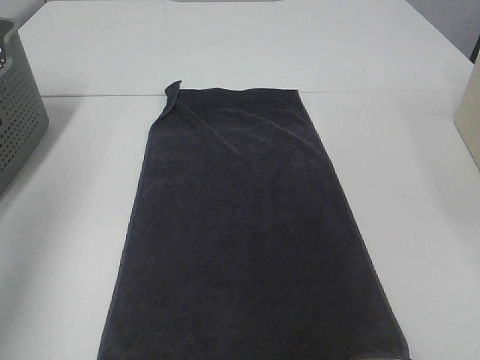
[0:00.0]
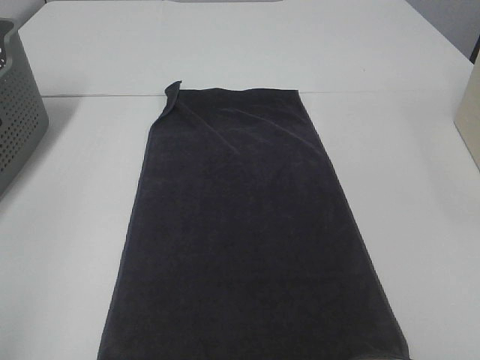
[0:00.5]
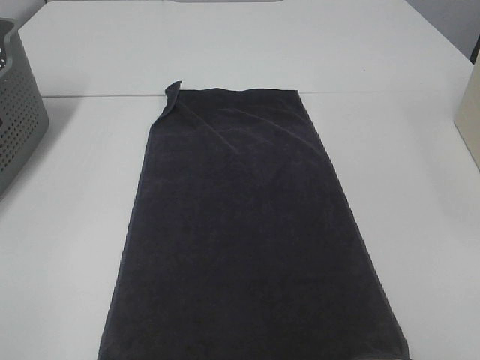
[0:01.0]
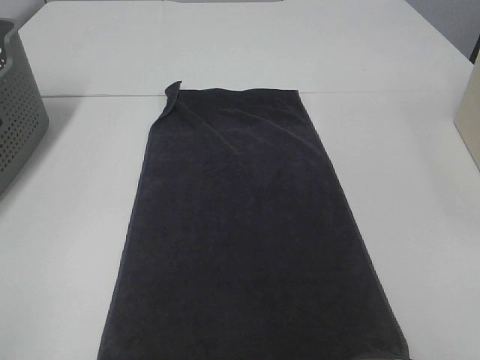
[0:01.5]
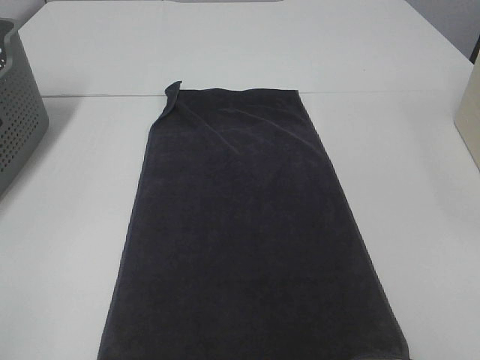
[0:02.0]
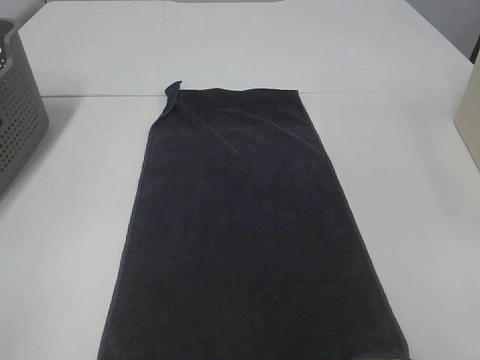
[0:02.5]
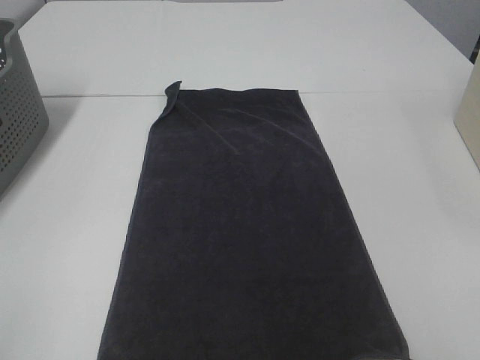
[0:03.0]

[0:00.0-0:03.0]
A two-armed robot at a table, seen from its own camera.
Task of the whole recording: Remove the towel and place it.
0:00.0 to 0:01.5: The left gripper shifts some 20 cm backward and downward.
0:01.5 to 0:03.0: Neither gripper changes place.

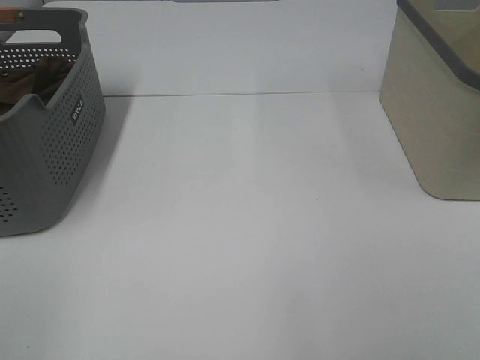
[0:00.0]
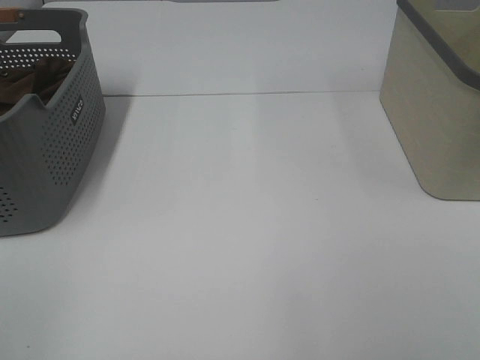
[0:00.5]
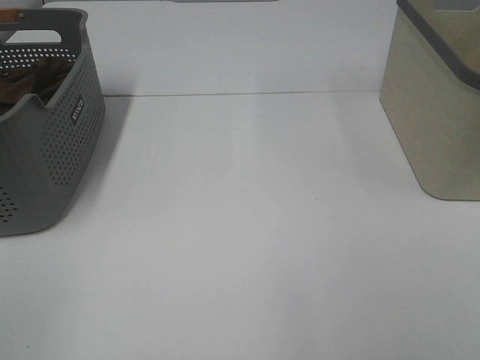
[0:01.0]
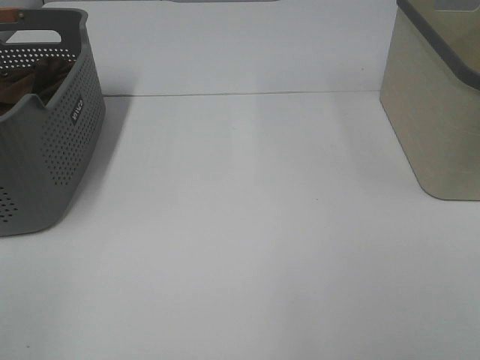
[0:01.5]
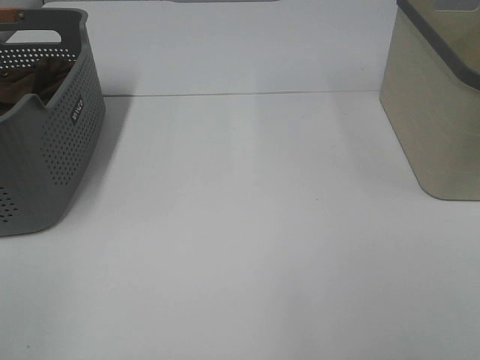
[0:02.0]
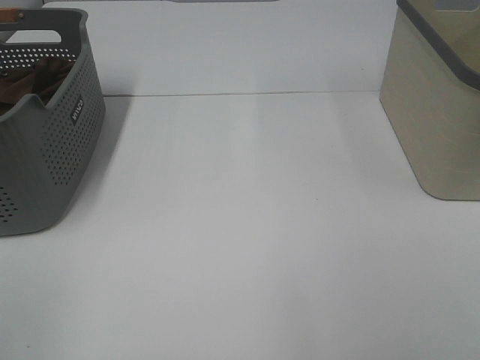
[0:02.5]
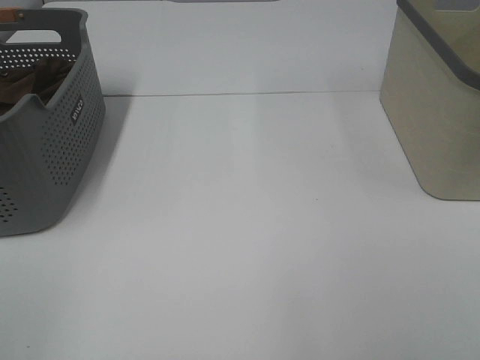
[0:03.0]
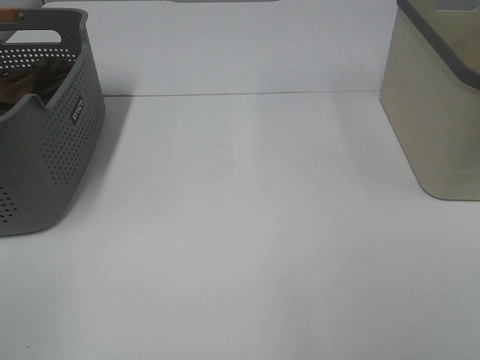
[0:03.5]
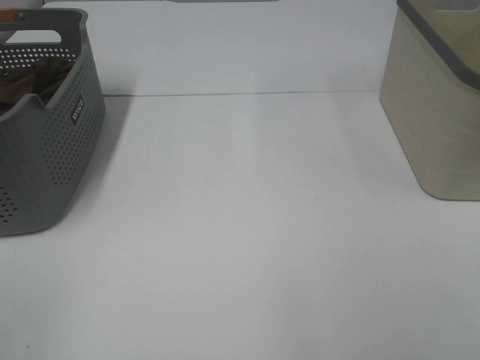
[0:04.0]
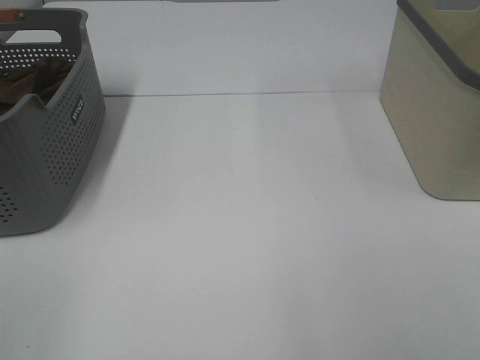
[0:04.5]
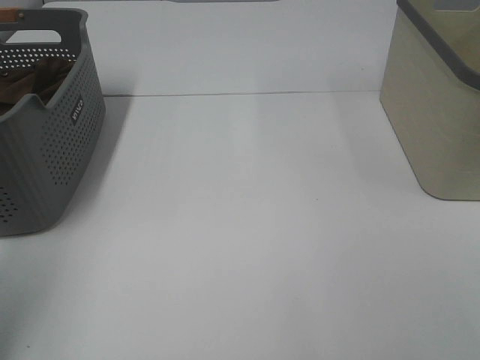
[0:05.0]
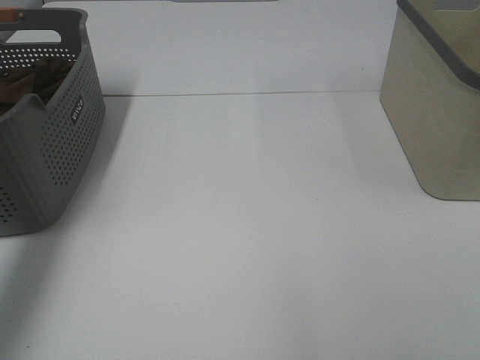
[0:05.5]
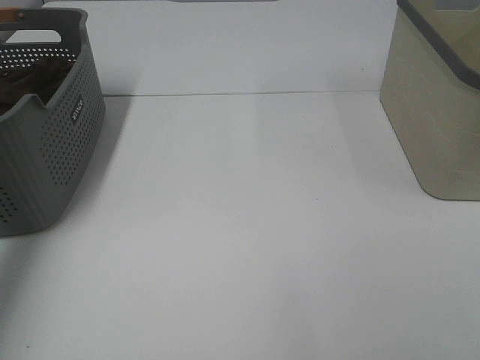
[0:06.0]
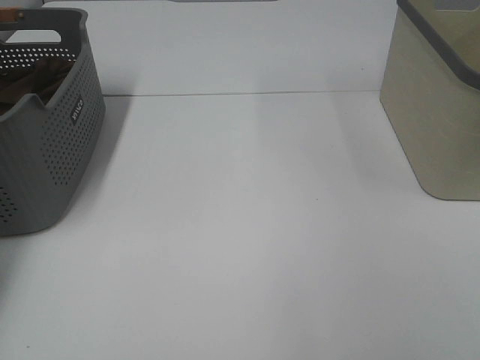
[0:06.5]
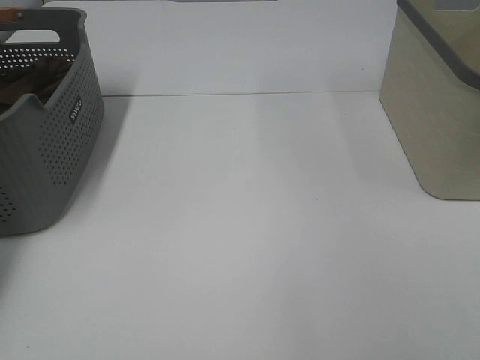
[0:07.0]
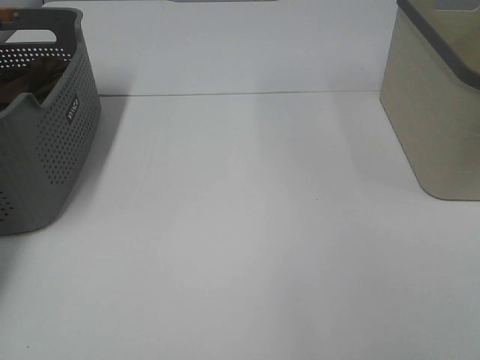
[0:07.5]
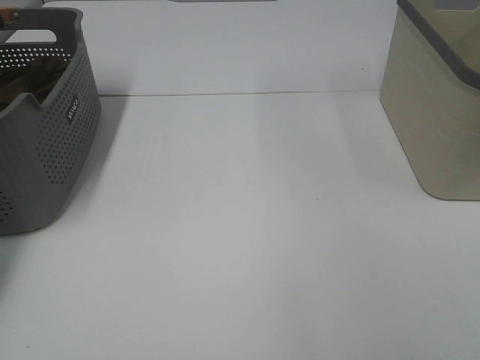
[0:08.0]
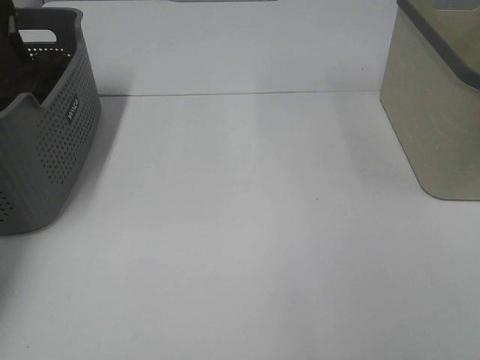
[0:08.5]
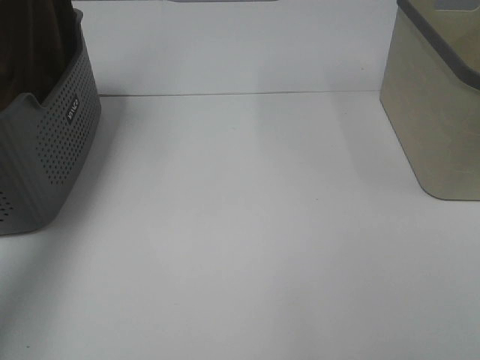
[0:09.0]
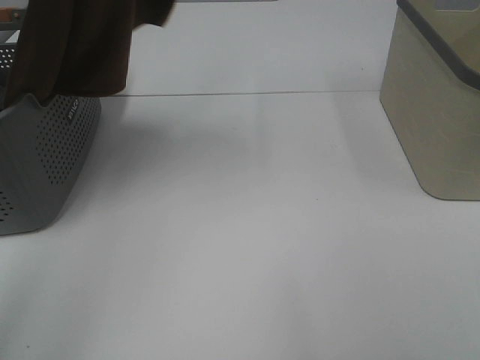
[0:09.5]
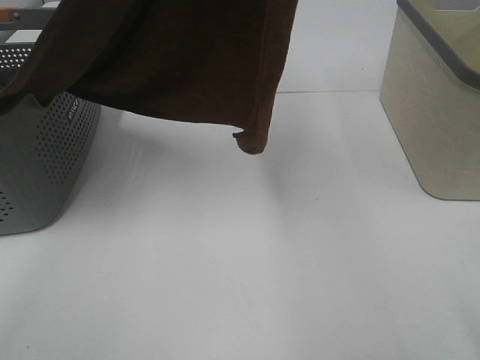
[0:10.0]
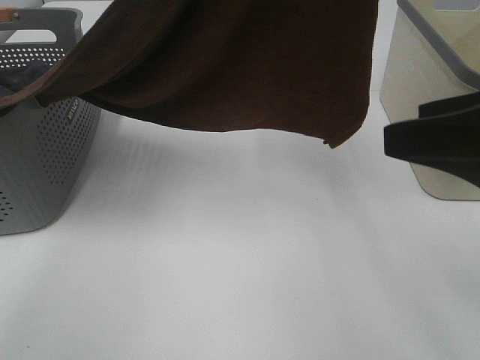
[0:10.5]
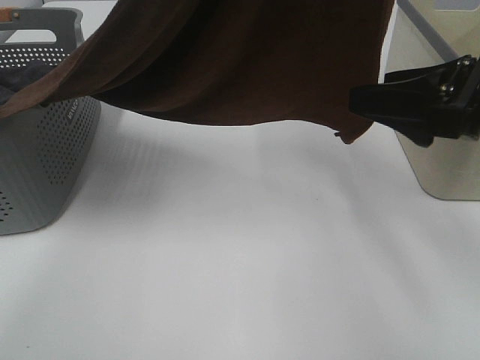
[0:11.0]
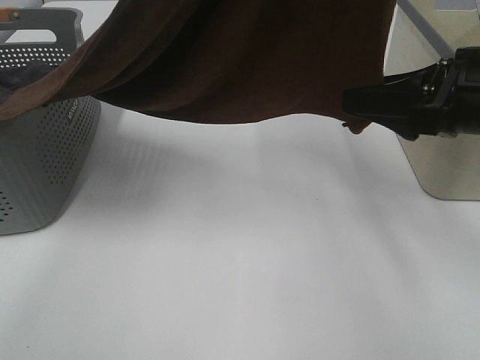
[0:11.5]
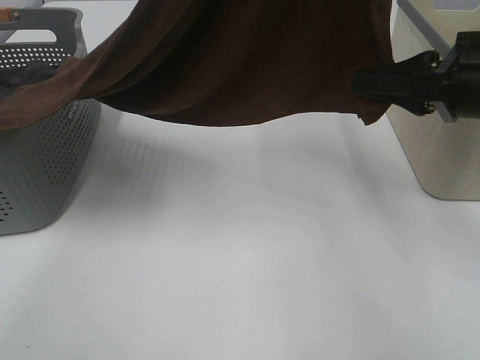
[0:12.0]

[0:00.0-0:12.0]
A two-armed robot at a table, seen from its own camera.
Task of the whole recording: Remove the towel and place it.
Step, 0:08.5 to 0:12.0: Right hand: grab a corner of the brown towel and straighten it.
0:00.0 to 0:04.0: Both grippers stay about where they are.
0:04.0 to 0:06.0: The left gripper shifts approximately 40 cm forward.
0:06.0 to 0:08.0: The left gripper heads downward, forward and to the left, covering some 15 cm, and closes up.
0:08.0 to 0:10.0: The left gripper is displaced to the right, upward and backward by roughly 50 cm, while the right gripper heads forward, covering approximately 5 cm.
0:10.0 to 0:12.0: The right gripper heads forward, covering some 20 cm, and closes its fingers.

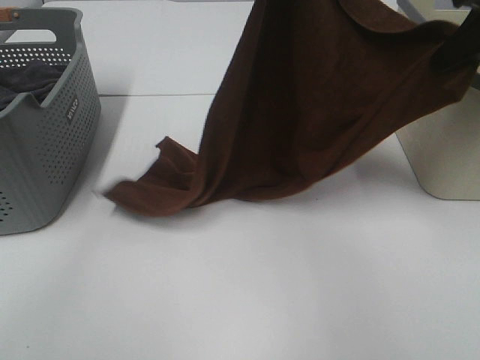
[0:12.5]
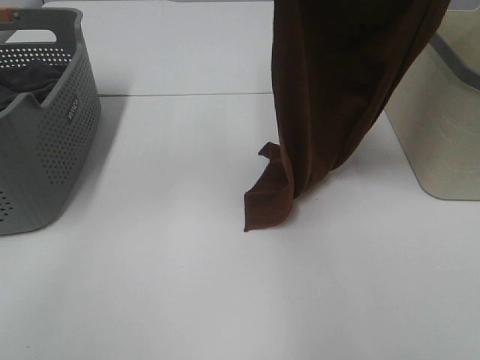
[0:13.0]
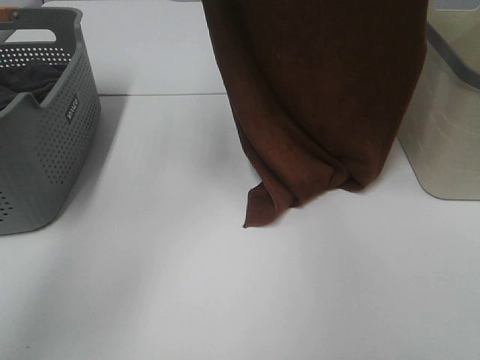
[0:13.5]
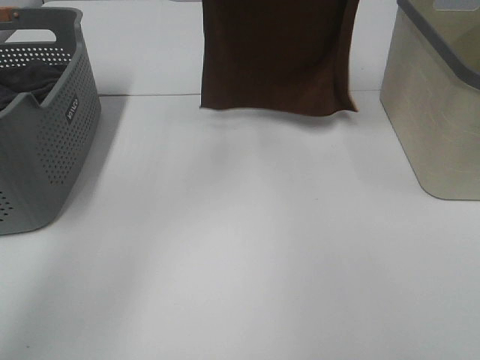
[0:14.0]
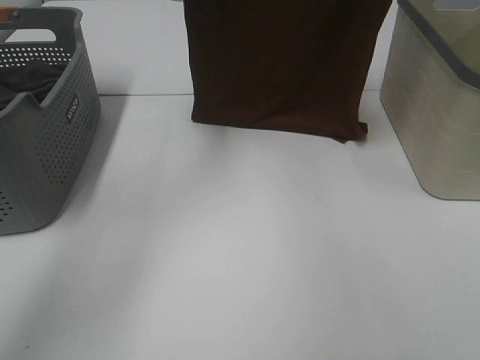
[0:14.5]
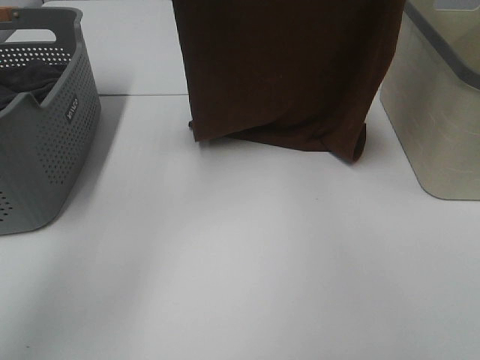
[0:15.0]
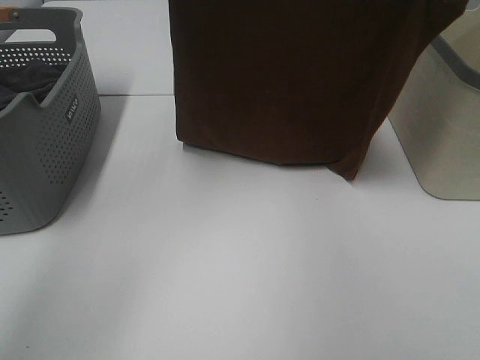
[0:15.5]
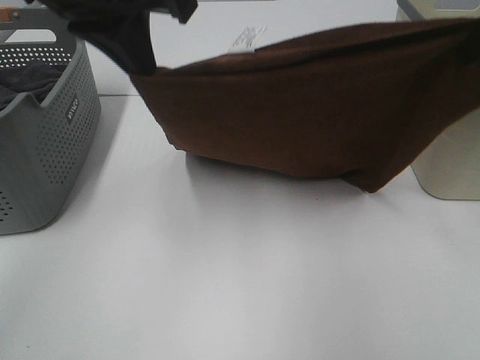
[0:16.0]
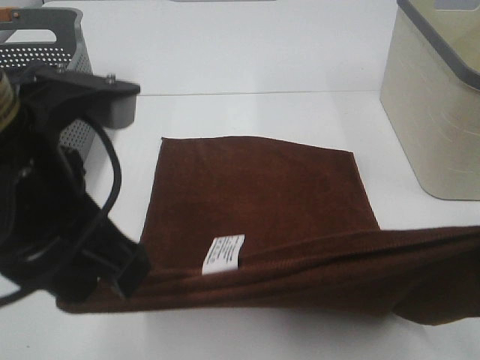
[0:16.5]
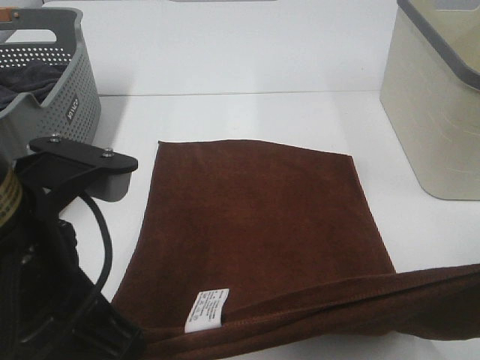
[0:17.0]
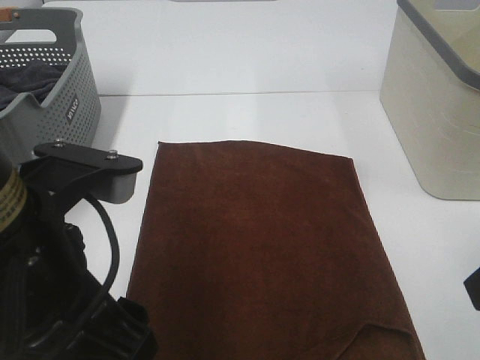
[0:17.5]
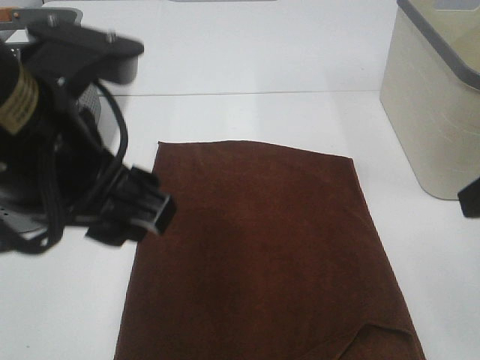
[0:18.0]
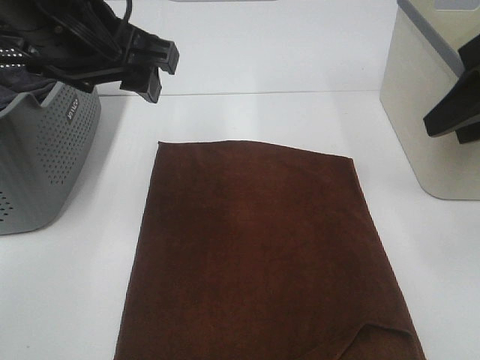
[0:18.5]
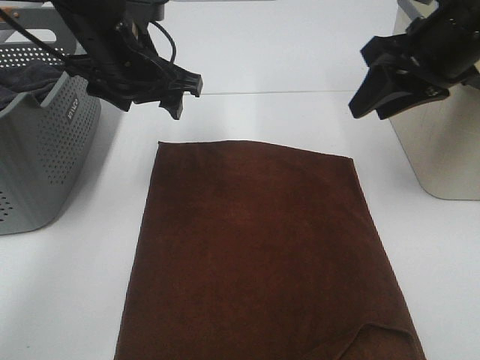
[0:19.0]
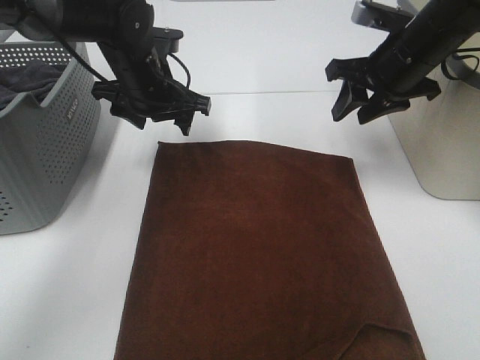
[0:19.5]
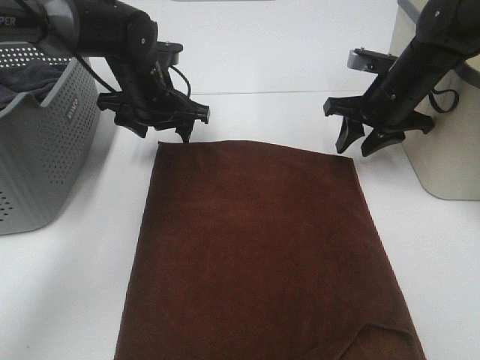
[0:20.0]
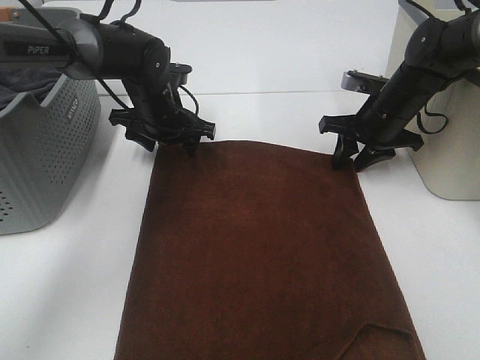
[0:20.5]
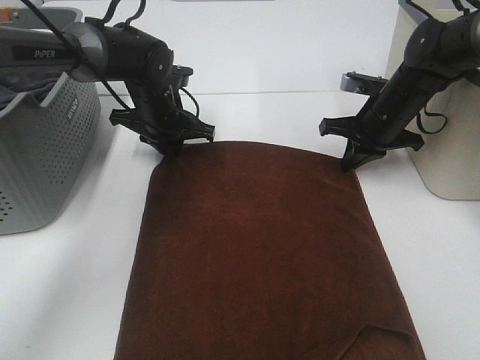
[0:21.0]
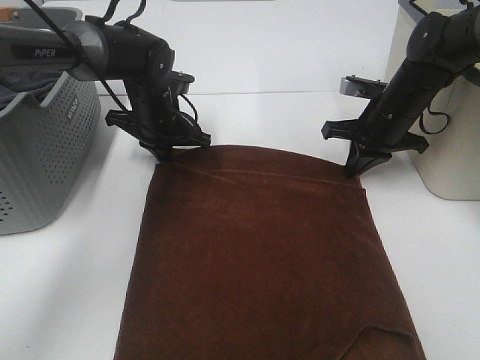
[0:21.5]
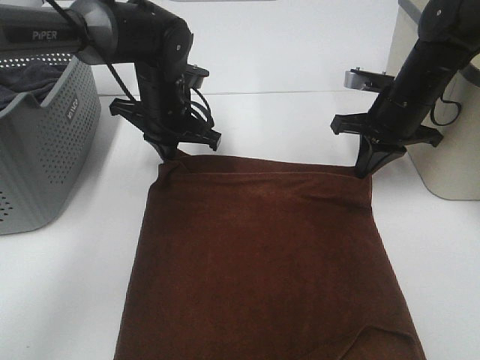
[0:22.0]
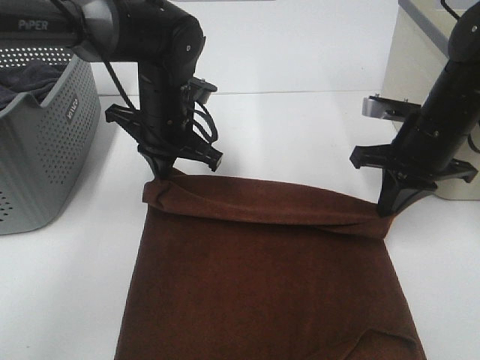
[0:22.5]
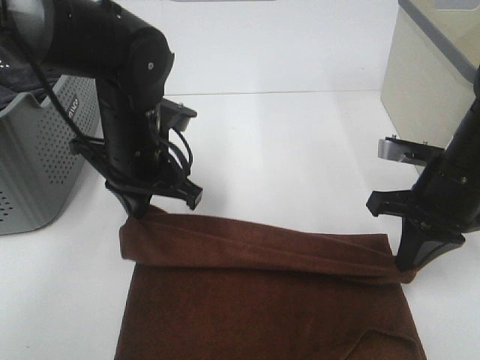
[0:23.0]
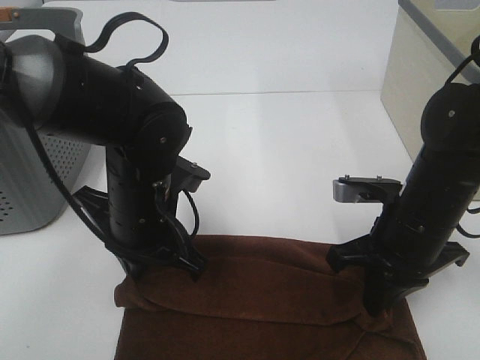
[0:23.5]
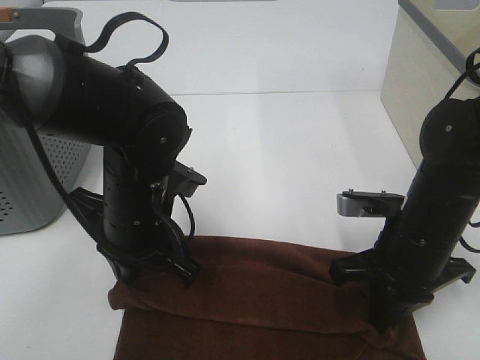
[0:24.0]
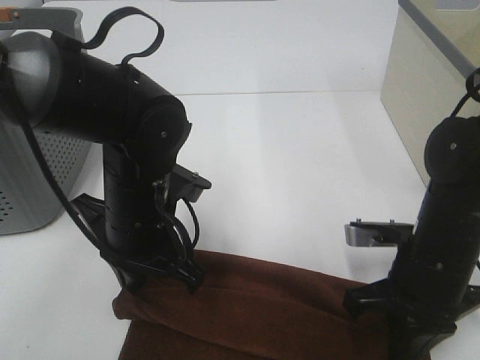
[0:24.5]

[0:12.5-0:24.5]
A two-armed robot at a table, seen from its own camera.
Task of the whole recording: Remove the towel and place it.
Step, 0:12.5 to 0:14.0: Left hand: spread the brown towel flat on the table.
Step, 0:12.5 to 0:14.0: Right hand: spread the brown towel flat on the table.
Step, 0:14.5 to 0:22.5: Left hand:adjust the brown towel.
Step, 0:14.5 to 0:22.5: Right hand:adjust the brown towel.
0:12.5 to 0:14.5: The right gripper swings up and down, approximately 20 cm each way, with 3 reversals. The left gripper goes some 15 cm to the left and forward.
0:14.5 to 0:16.5: The two grippers go approximately 35 cm backward and downward.
0:16.5 to 0:18.5: Both grippers move forward, about 10 cm. The left gripper opens up. The right gripper opens.
0:18.5 to 0:20.5: Both grippers travel together downward and forward, approximately 25 cm.
0:20.5 to 0:22.5: Both grippers travel together backward, approximately 10 cm. The right gripper closes. Meanwhile the left gripper closes up.
0:22.5 to 0:24.5: Both grippers travel together backward, approximately 15 cm.
